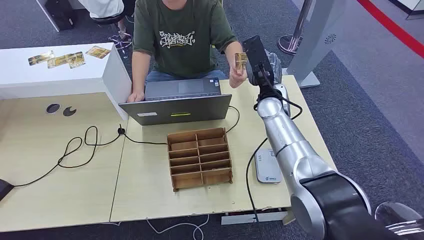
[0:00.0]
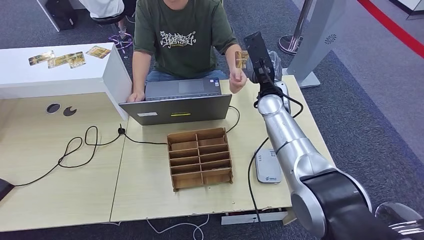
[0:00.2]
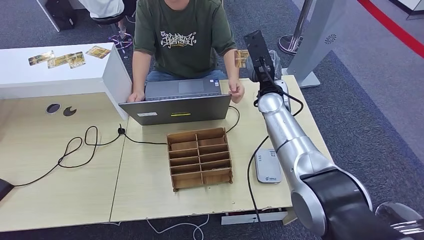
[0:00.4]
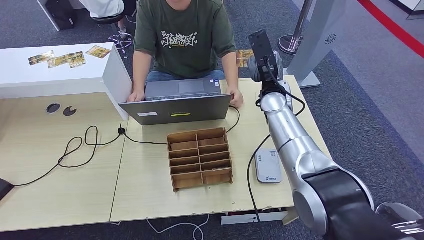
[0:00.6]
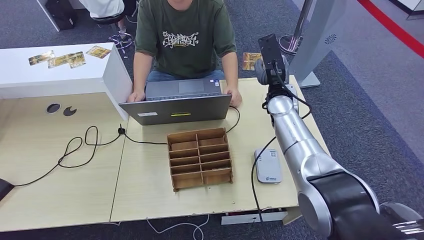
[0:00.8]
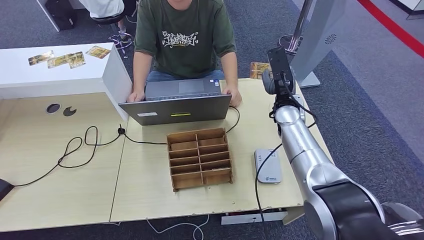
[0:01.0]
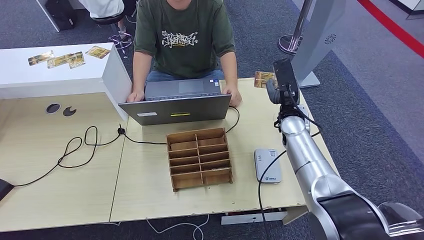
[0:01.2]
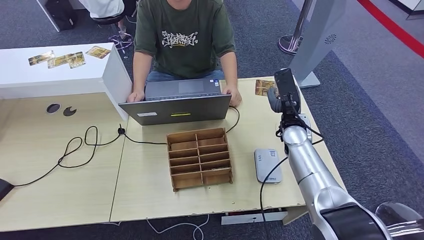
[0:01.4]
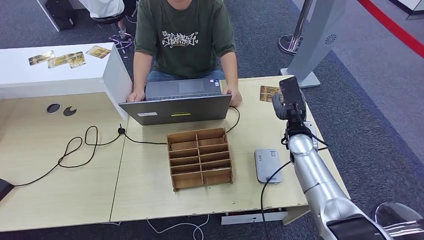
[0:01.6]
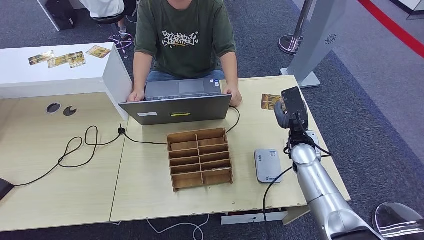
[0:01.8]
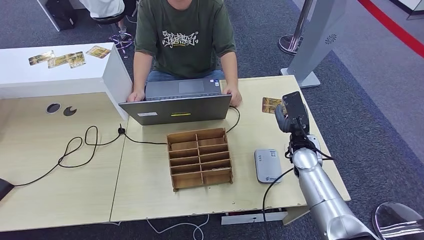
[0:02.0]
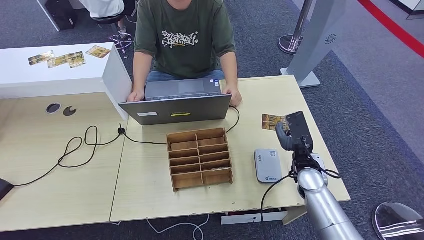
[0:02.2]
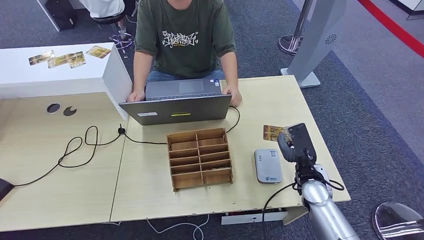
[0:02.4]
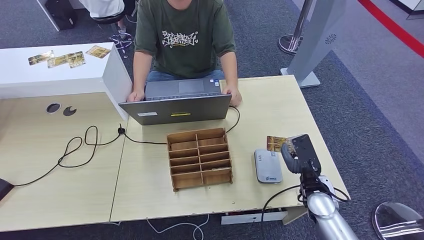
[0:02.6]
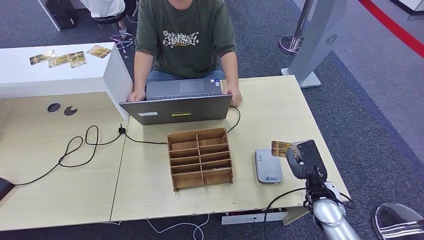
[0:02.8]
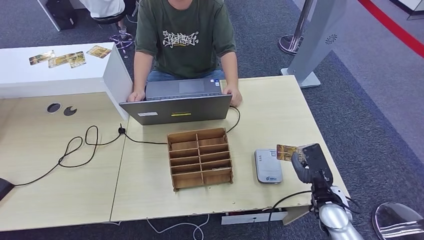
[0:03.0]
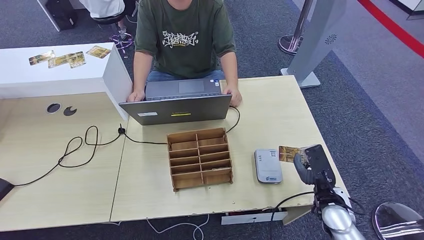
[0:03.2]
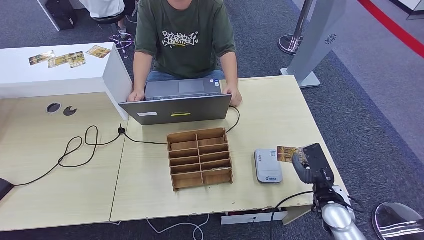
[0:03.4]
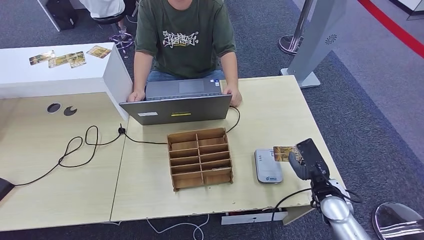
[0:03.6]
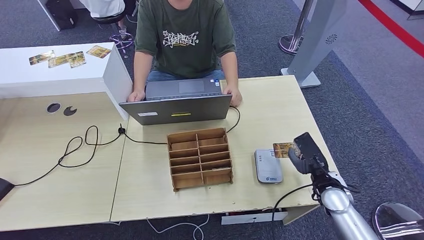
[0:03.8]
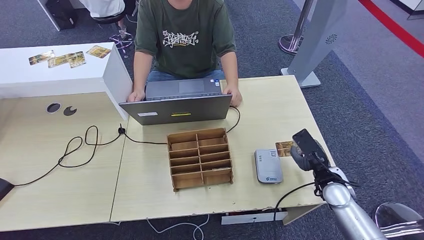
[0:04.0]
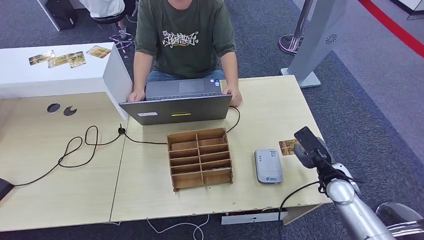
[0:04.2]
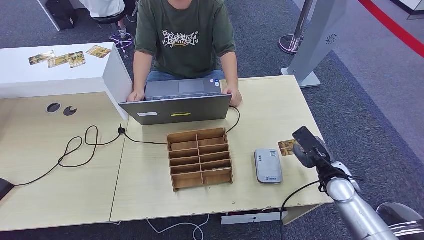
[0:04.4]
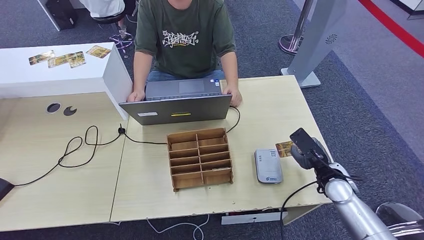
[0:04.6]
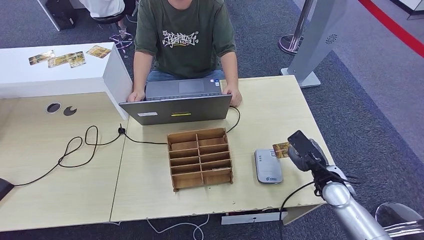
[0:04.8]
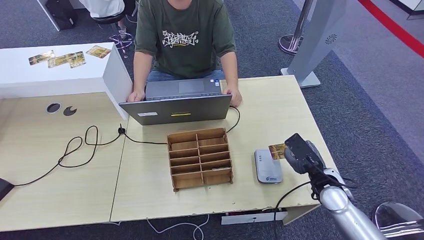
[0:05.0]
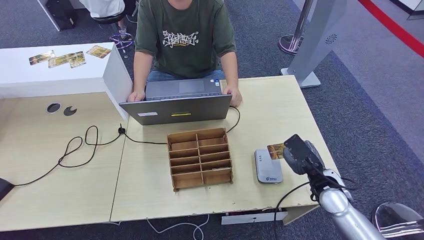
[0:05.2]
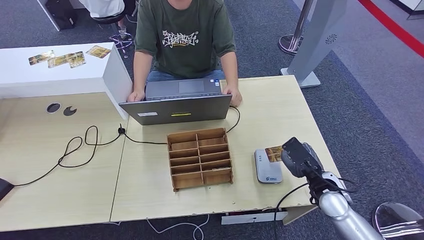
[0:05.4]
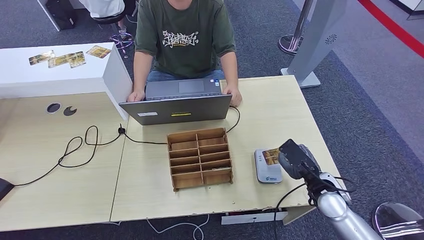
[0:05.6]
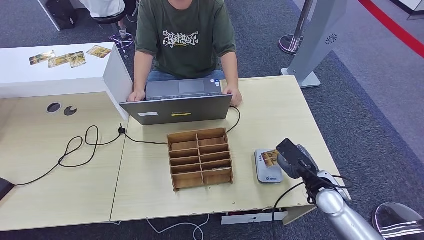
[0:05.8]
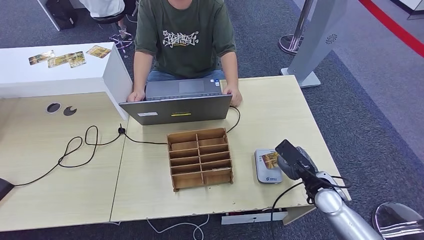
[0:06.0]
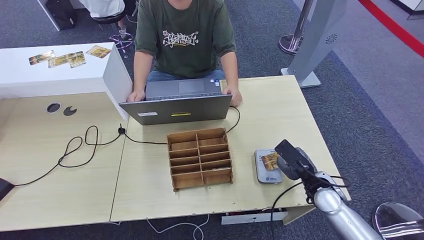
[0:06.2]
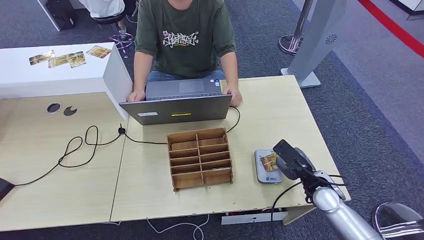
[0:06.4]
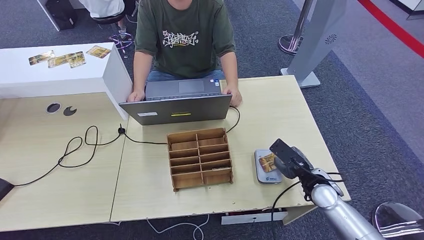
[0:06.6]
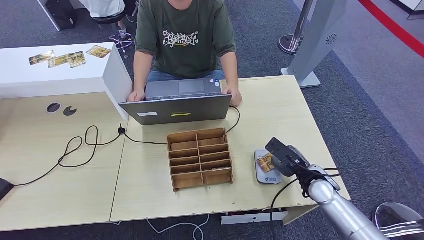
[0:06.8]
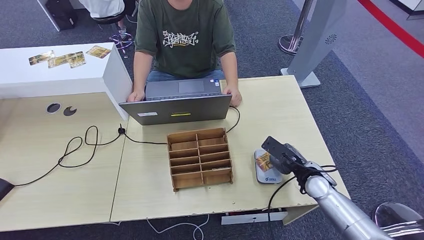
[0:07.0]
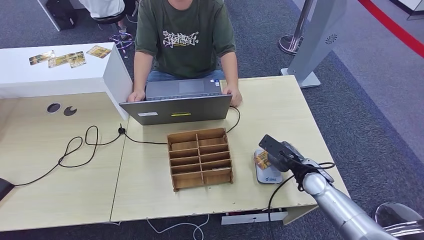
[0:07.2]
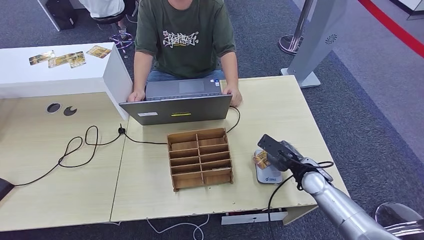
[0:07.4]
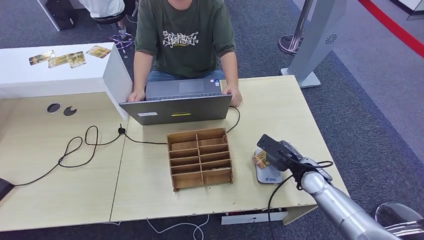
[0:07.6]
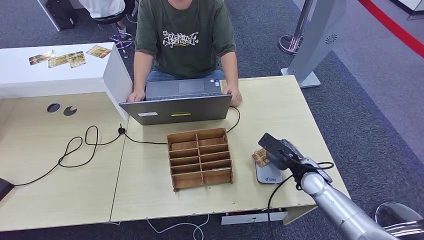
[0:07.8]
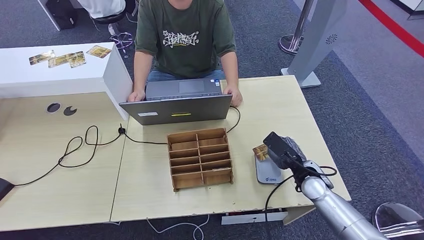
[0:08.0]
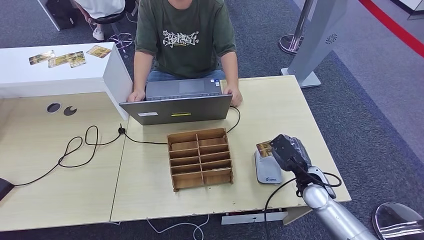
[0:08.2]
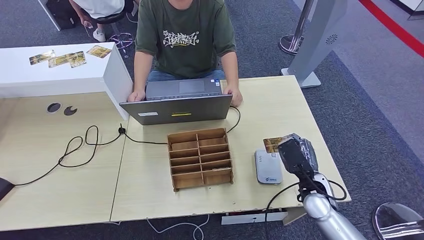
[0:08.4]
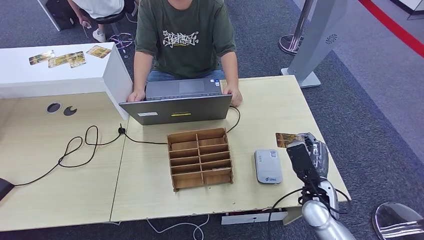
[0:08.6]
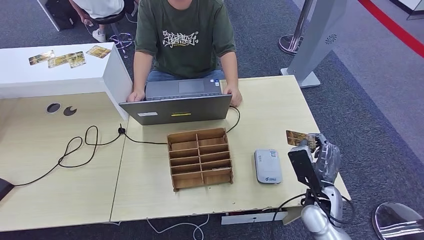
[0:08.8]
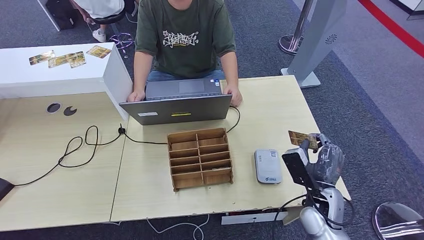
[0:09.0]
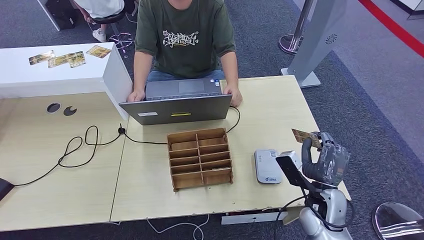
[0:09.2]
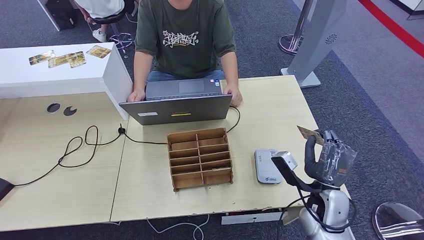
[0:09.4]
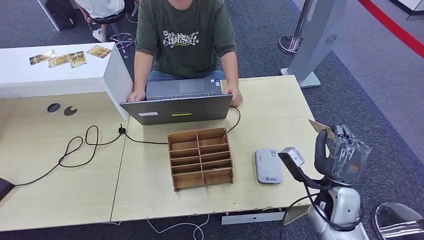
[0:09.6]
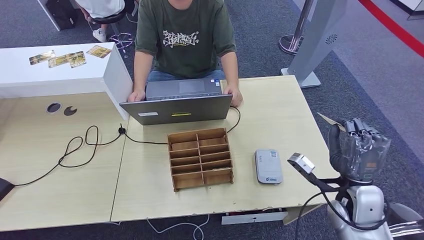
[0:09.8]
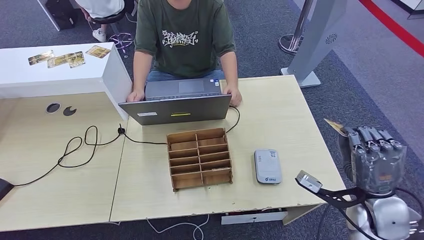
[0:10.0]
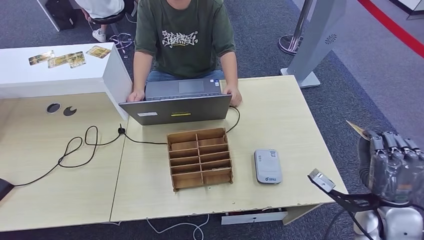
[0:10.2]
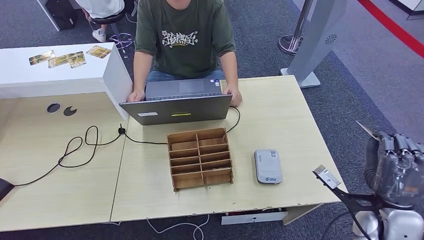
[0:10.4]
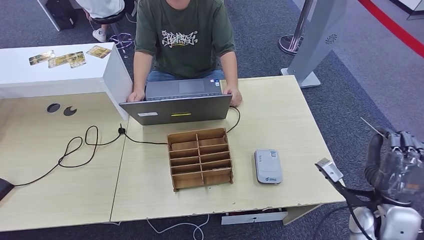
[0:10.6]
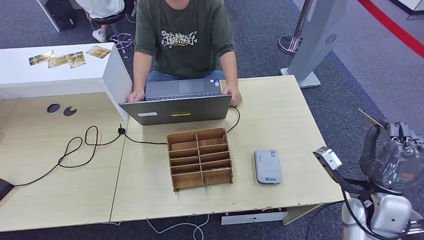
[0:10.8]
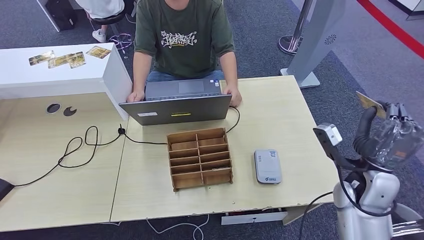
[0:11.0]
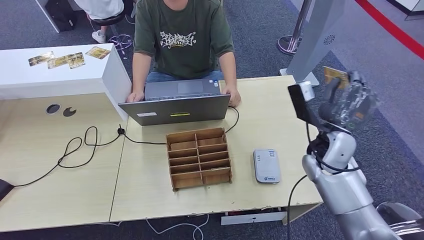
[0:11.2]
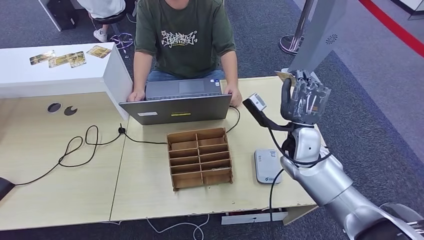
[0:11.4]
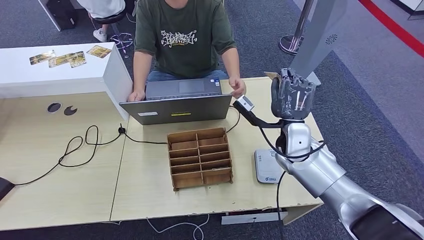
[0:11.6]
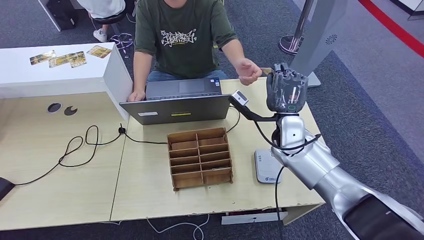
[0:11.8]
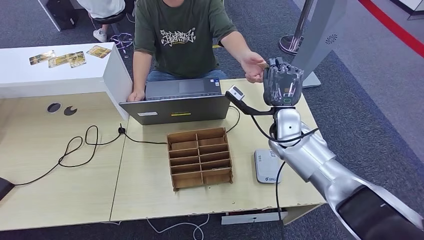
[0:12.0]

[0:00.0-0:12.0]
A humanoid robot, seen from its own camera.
Step, 0:00.0 to 0:02.0: Take the ID card from the person's hand.
Step, 0:02.2 to 0:08.8: Place the ID card on the card reader.
0:01.6 to 0:03.0: The right hand shifts some 20 cm backward and downward.
0:03.0 to 0:04.4: The right hand travels forward and to the right by about 5 cm.
0:04.4 to 0:06.0: The hands stay close to where they were, moving slightly.
0:06.0 to 0:07.6: The right hand ends up approximately 5 cm from where it was.
0:07.6 to 0:09.0: The right hand heads backward, covering some 10 cm.
0:09.0 to 0:10.4: The right hand heads to the right and upward, covering some 10 cm.
0:10.4 to 0:12.0: The right hand travels forward and to the left by approximately 25 cm.

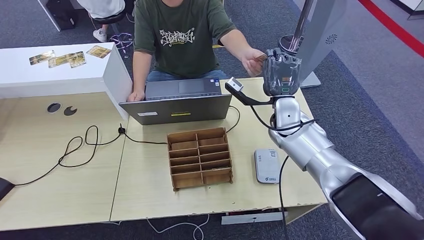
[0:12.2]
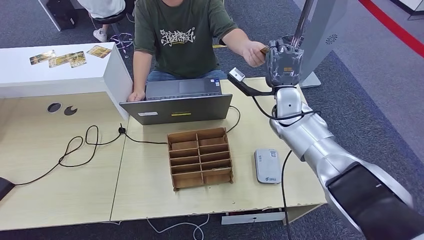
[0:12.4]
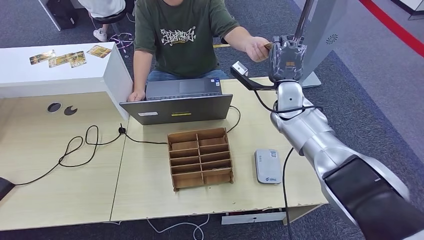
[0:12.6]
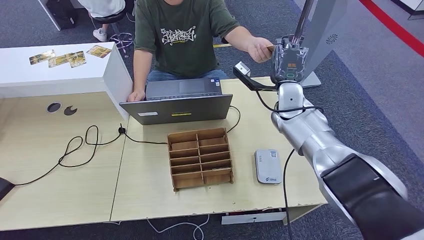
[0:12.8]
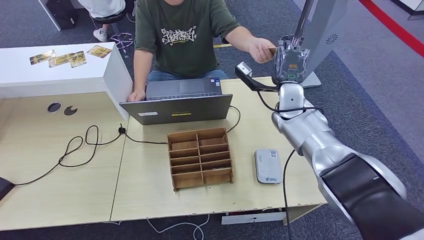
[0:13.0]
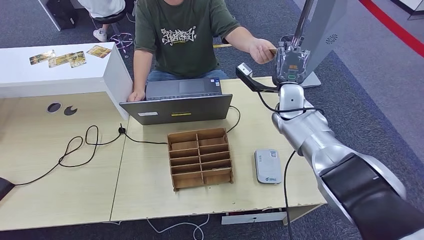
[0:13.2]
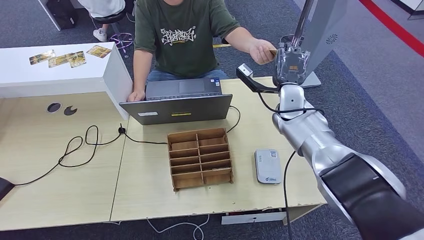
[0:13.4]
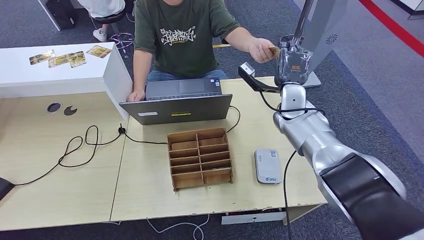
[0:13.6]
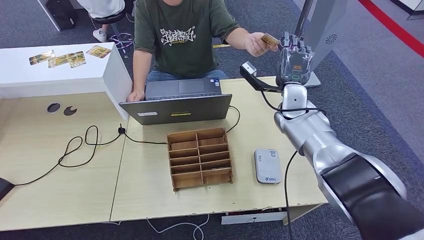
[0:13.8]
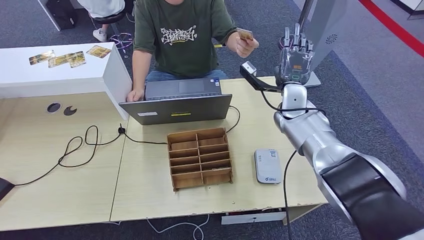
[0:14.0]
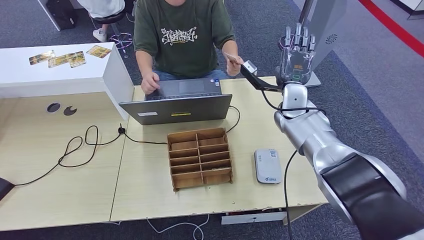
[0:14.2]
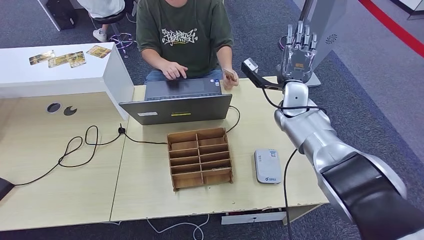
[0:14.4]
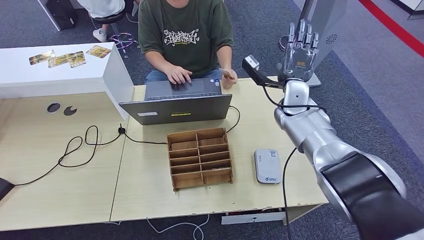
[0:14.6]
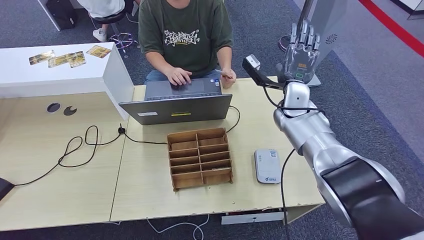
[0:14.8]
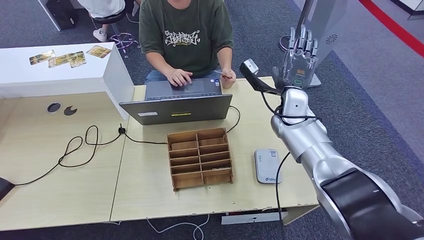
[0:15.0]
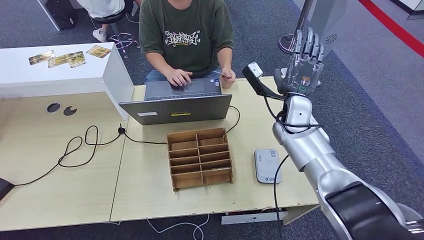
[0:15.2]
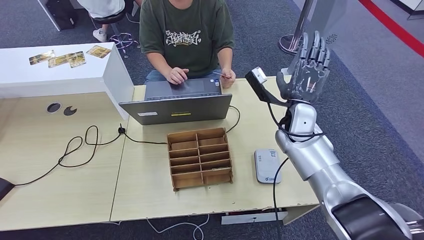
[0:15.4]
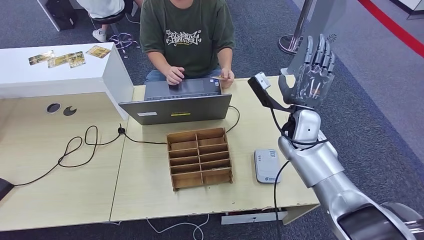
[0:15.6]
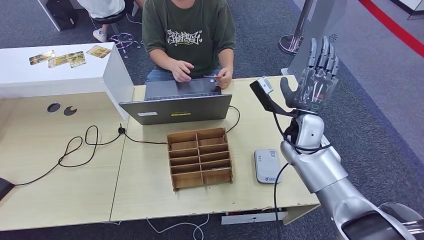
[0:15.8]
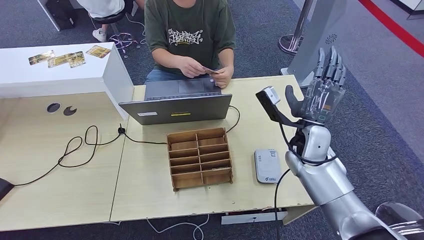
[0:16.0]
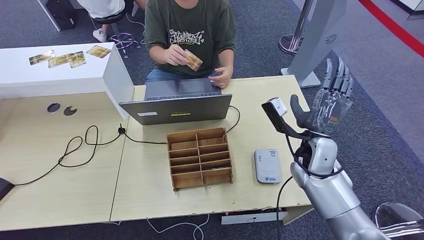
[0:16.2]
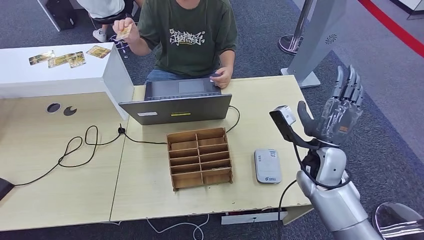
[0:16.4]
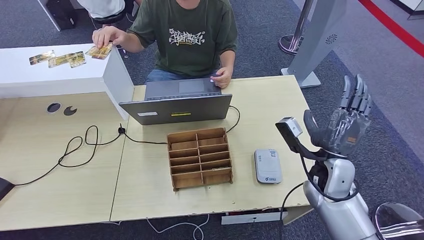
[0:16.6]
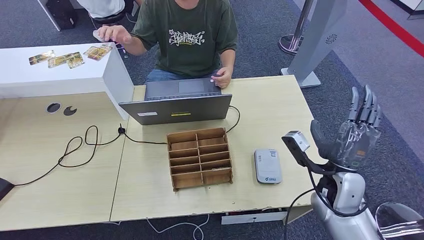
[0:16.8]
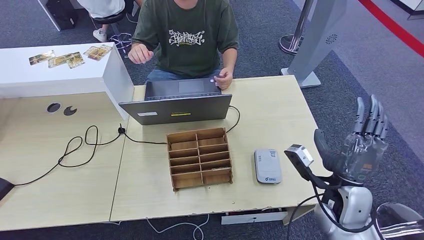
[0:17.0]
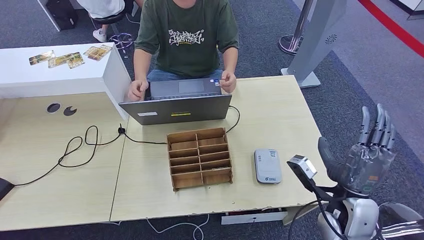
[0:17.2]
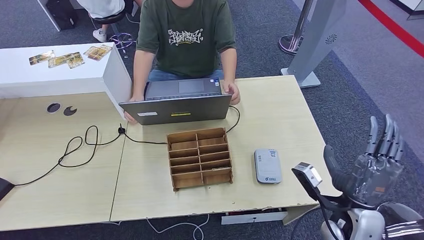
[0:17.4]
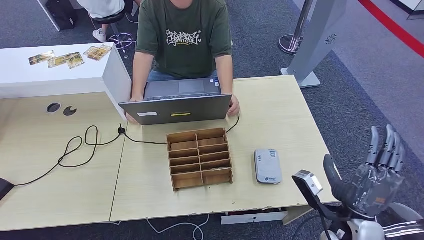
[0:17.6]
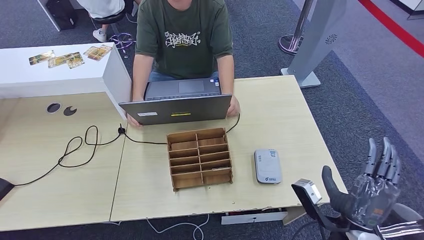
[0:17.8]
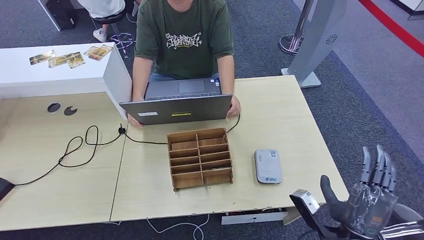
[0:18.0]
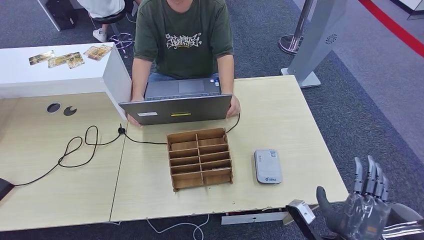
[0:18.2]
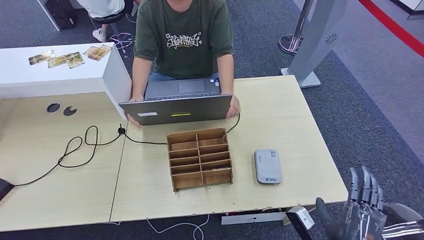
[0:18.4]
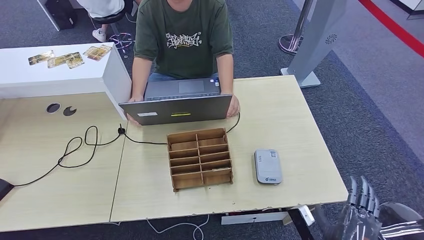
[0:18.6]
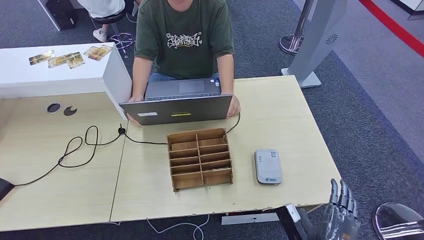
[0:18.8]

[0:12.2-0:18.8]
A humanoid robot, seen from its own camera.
Step, 0:12.2 to 0:14.4: Hand the ID card to the person.
0:12.2 to 0:13.8: The hands move only a little.
0:13.8 to 0:15.4: The right hand goes some 5 cm backward.
0:15.4 to 0:17.2: The right hand shifts some 20 cm backward.
0:17.2 to 0:18.8: The right hand shifts approximately 15 cm backward, downward and to the left.
